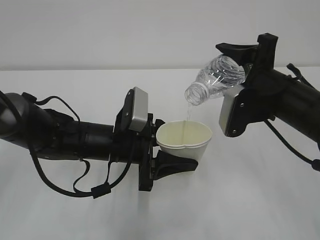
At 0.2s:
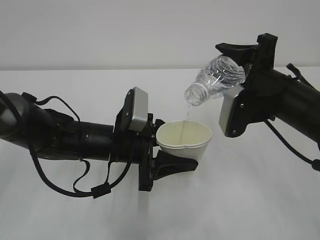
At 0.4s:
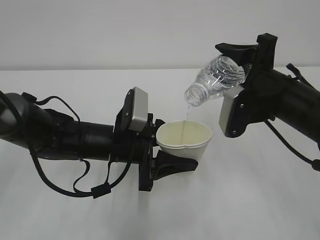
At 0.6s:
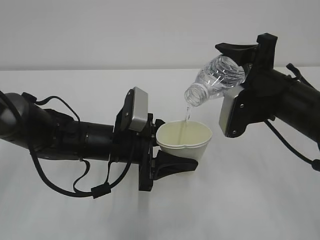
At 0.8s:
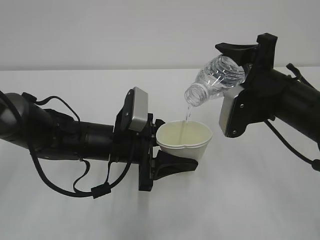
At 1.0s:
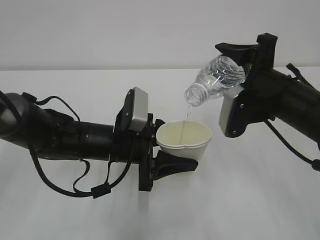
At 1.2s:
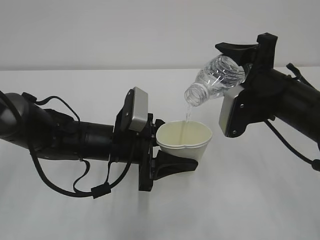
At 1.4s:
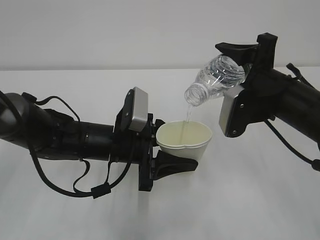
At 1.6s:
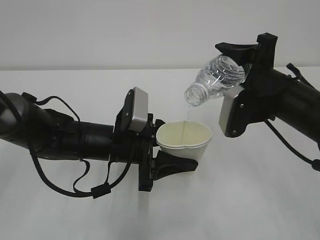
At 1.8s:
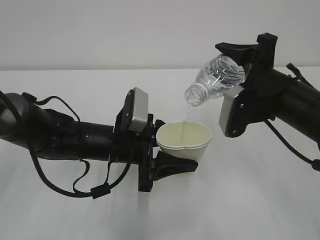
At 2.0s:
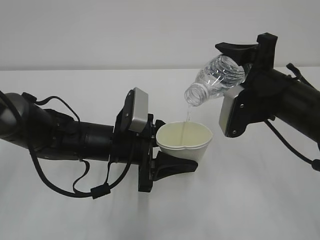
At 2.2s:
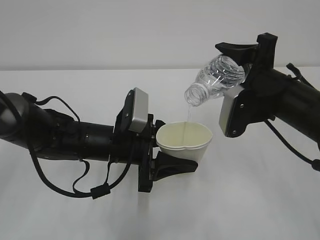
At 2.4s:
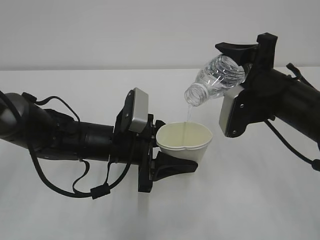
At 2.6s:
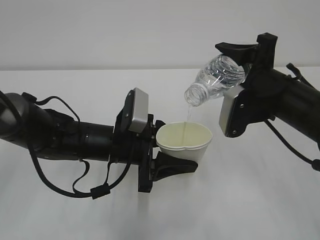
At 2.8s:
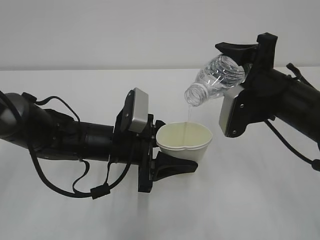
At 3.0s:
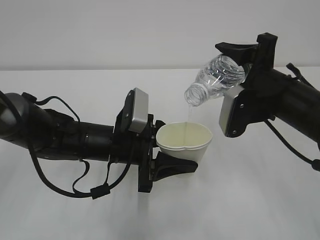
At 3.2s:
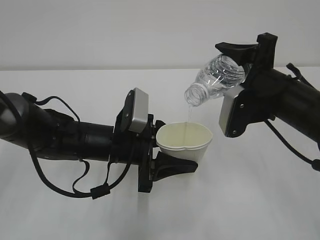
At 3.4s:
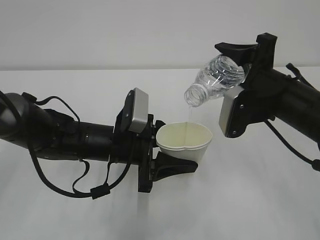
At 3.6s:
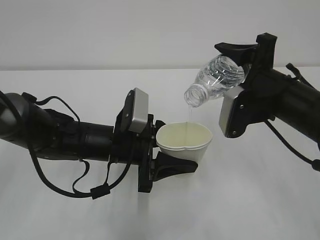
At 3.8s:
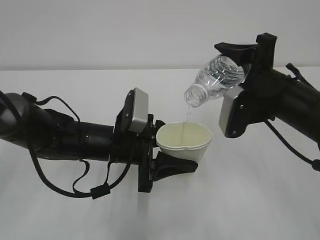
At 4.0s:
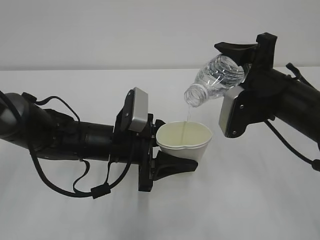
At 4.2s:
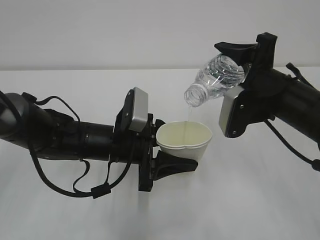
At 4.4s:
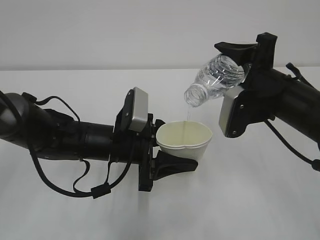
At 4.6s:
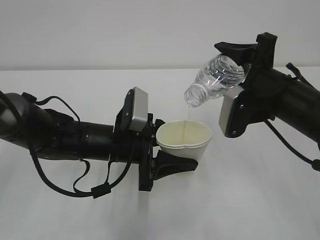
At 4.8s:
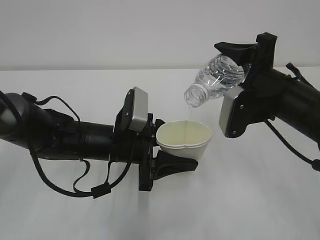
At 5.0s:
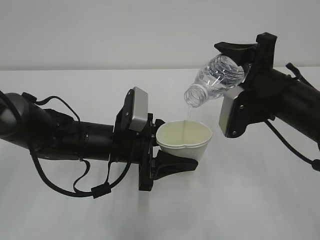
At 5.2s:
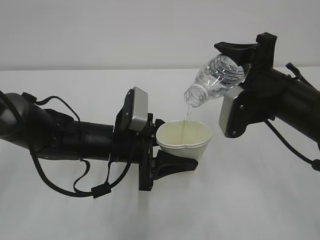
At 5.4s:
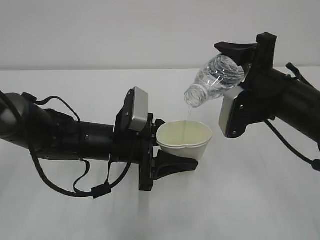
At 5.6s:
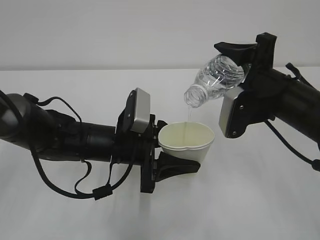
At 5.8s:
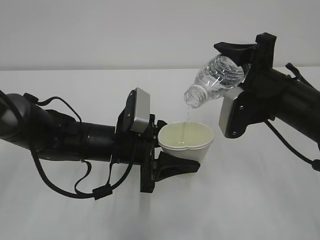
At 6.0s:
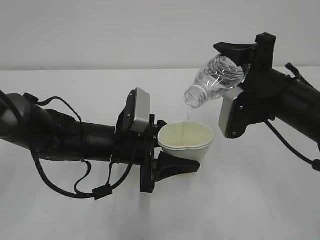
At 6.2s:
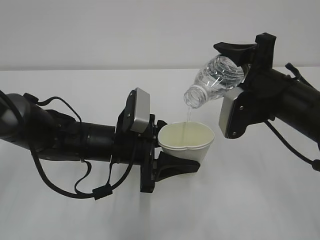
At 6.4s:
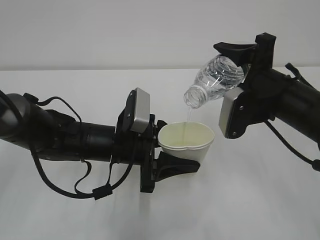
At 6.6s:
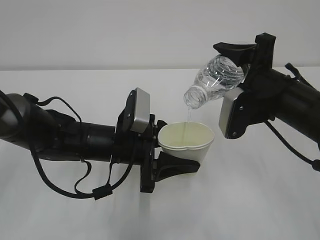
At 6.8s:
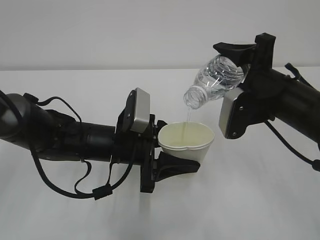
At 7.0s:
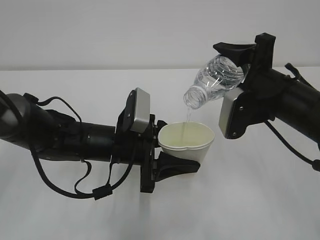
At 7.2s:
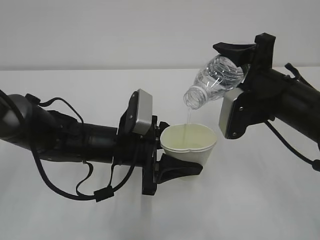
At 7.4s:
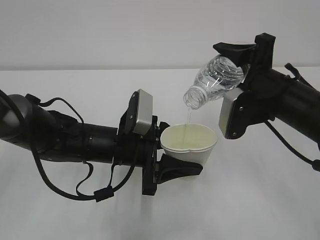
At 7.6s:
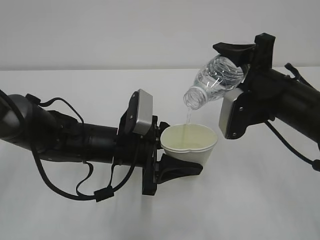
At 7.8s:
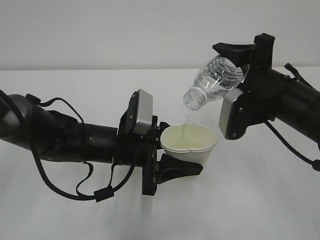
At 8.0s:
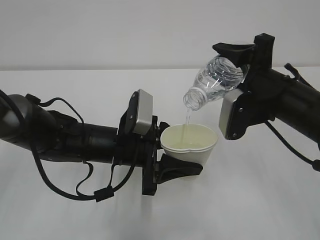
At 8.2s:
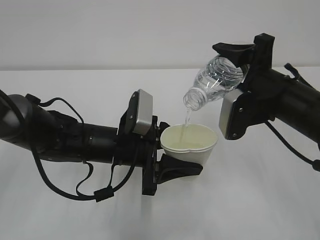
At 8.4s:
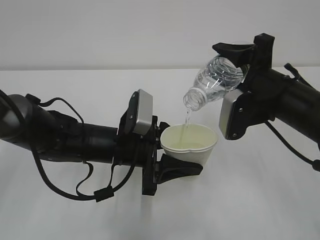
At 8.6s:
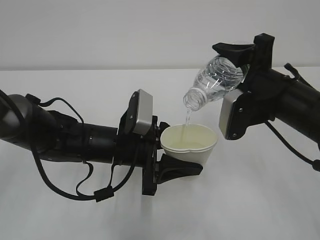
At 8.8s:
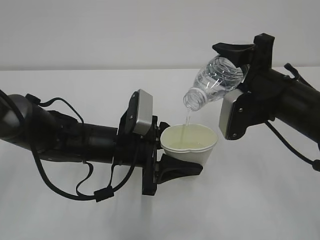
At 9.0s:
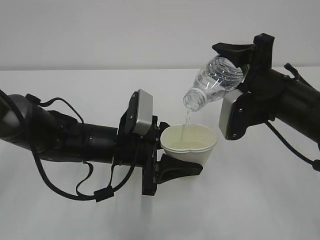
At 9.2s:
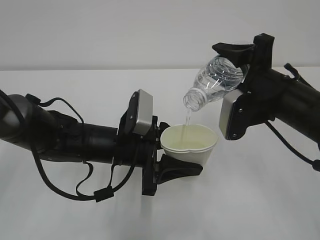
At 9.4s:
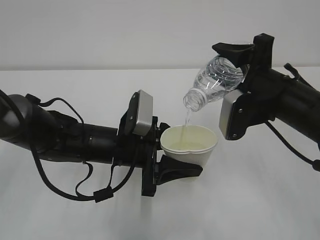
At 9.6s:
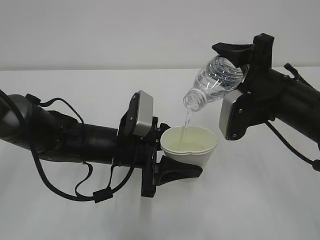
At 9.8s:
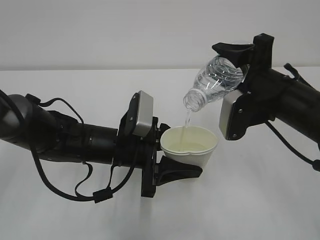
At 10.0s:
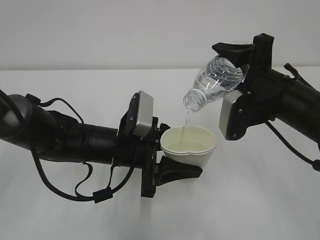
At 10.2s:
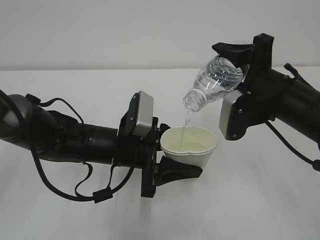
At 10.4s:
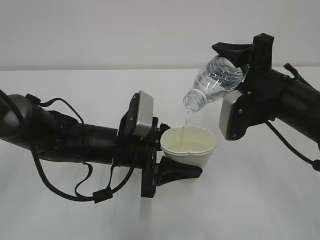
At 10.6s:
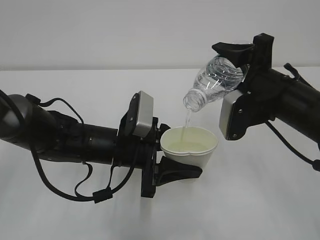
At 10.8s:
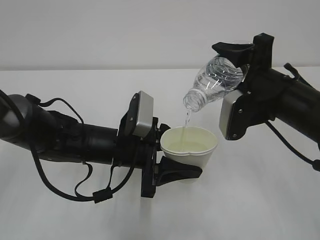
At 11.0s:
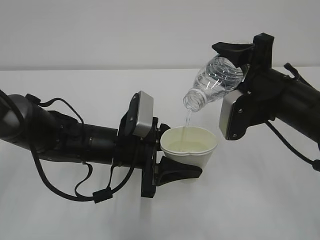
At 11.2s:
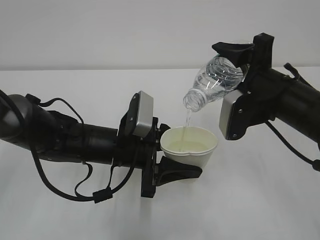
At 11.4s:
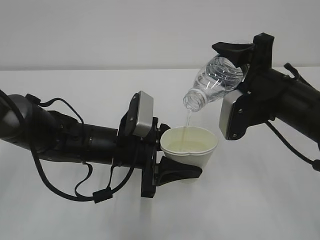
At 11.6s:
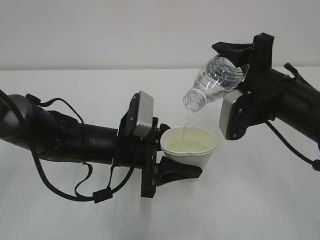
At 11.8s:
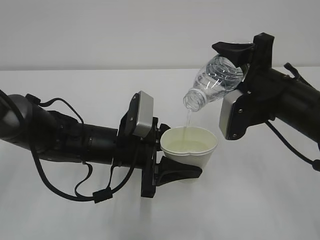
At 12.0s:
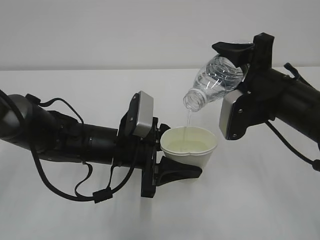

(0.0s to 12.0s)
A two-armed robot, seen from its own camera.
0.0s - 9.0s: Both grippers stay about where they are.
9.0s - 12.0s: Neither gripper changes place.

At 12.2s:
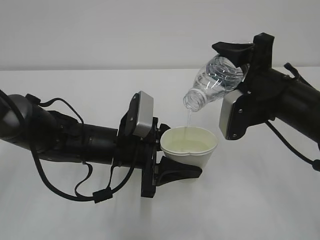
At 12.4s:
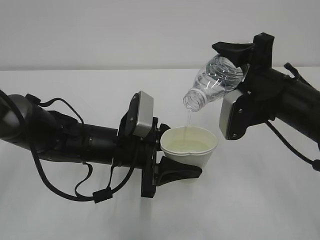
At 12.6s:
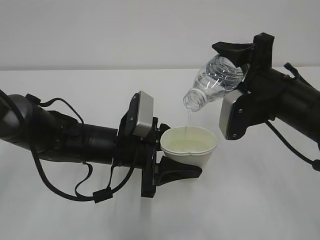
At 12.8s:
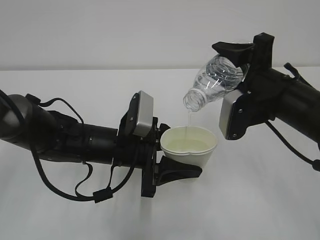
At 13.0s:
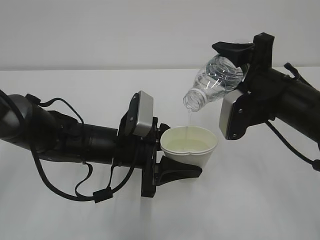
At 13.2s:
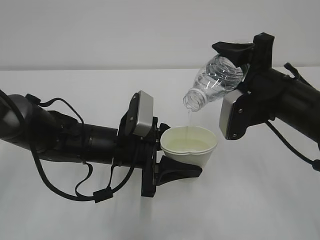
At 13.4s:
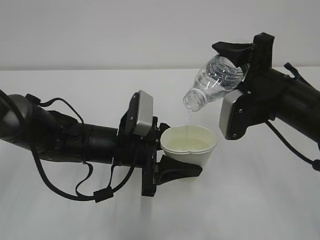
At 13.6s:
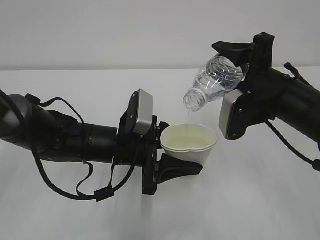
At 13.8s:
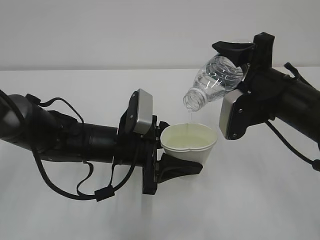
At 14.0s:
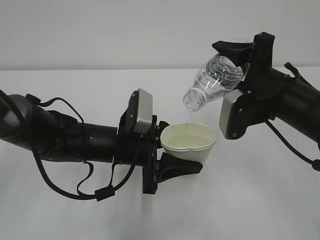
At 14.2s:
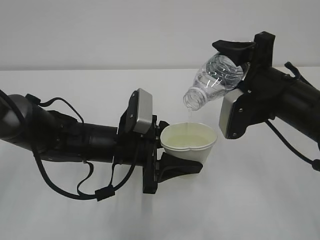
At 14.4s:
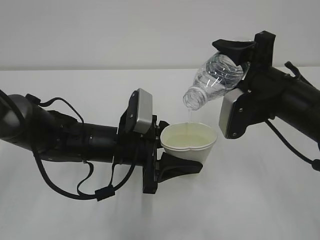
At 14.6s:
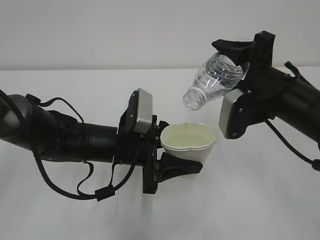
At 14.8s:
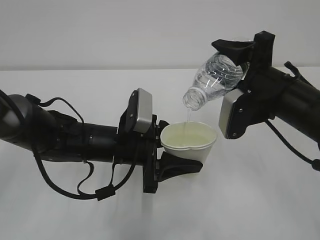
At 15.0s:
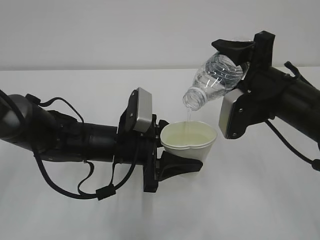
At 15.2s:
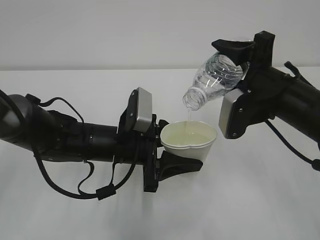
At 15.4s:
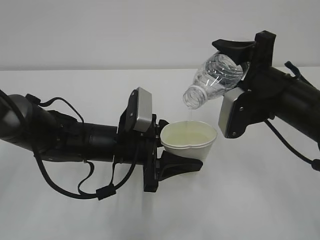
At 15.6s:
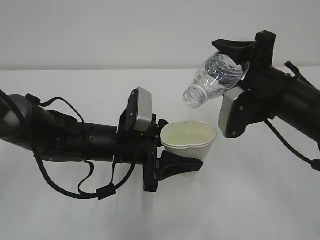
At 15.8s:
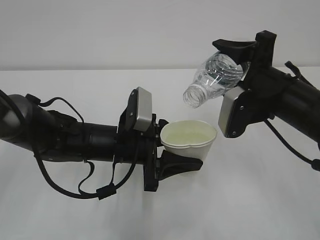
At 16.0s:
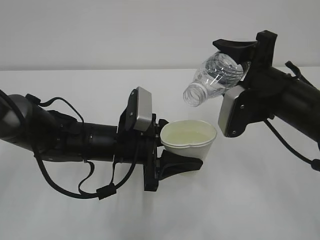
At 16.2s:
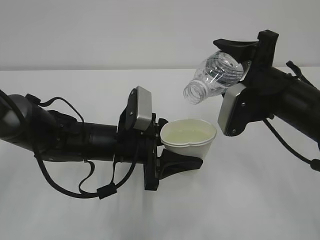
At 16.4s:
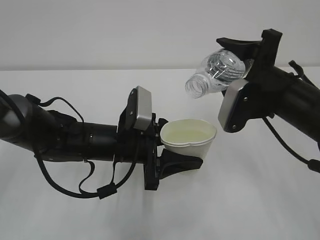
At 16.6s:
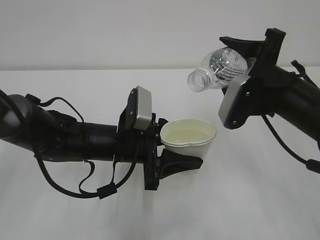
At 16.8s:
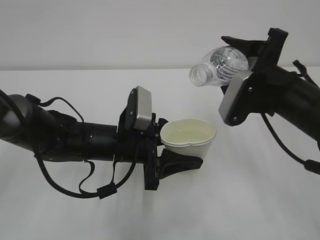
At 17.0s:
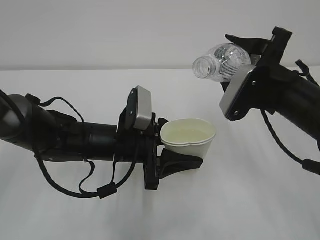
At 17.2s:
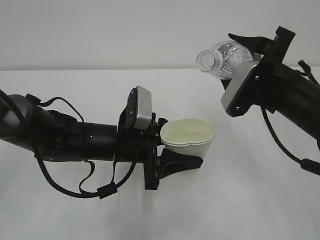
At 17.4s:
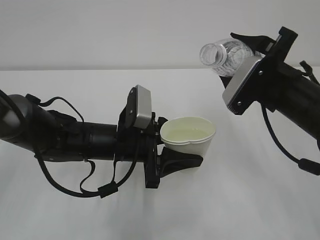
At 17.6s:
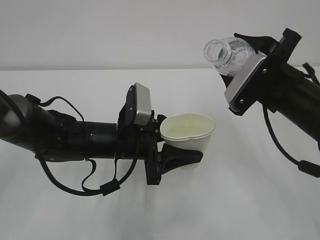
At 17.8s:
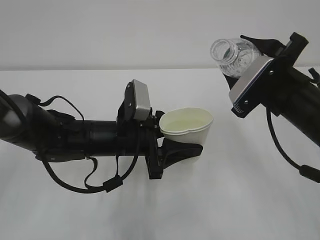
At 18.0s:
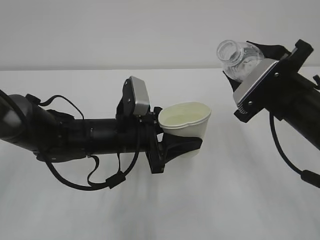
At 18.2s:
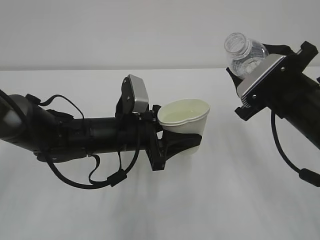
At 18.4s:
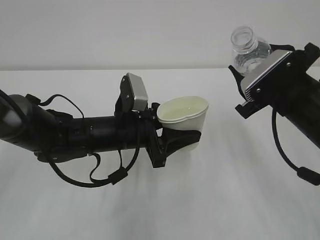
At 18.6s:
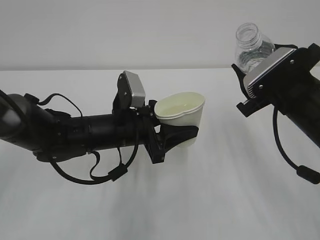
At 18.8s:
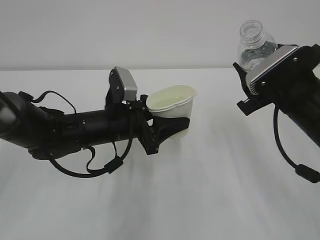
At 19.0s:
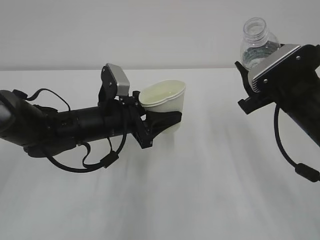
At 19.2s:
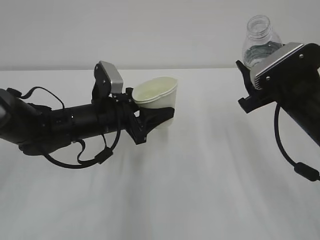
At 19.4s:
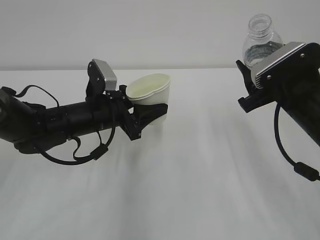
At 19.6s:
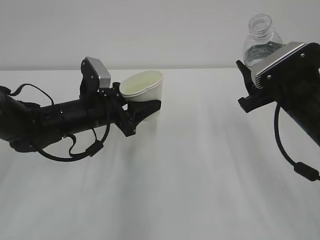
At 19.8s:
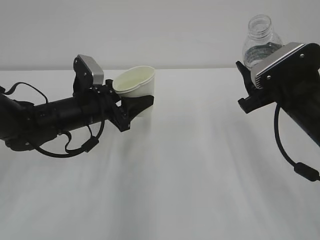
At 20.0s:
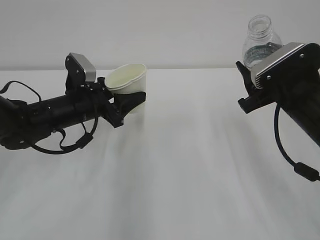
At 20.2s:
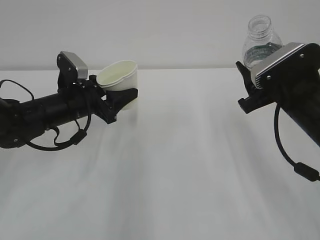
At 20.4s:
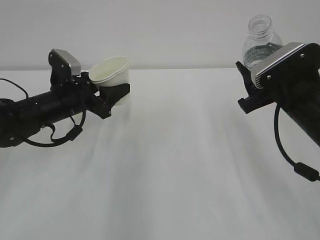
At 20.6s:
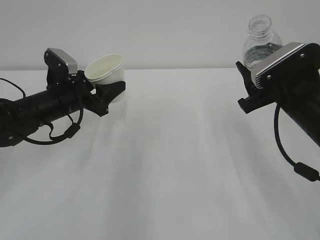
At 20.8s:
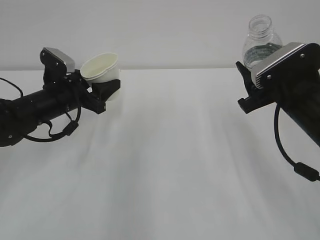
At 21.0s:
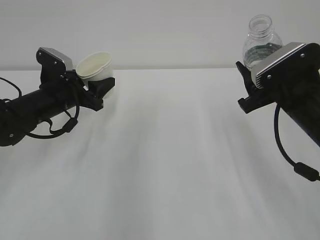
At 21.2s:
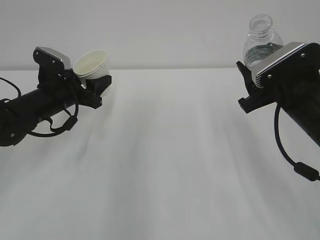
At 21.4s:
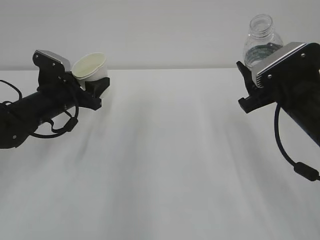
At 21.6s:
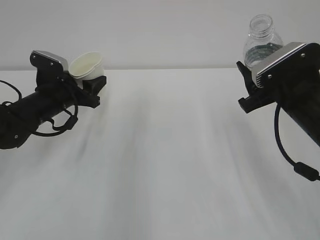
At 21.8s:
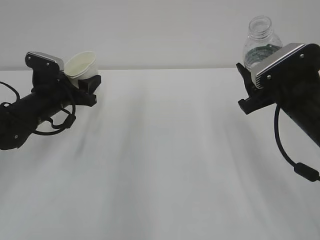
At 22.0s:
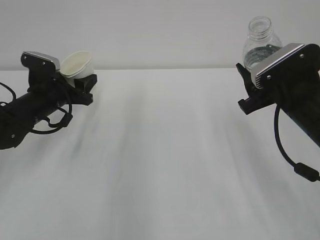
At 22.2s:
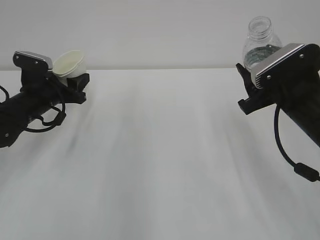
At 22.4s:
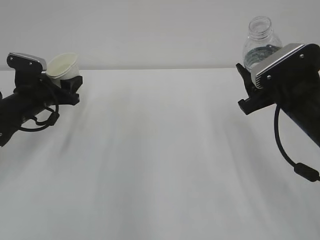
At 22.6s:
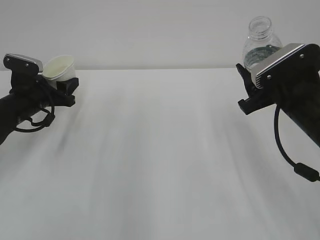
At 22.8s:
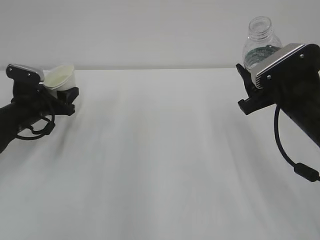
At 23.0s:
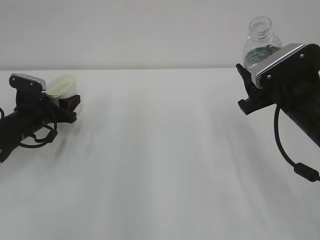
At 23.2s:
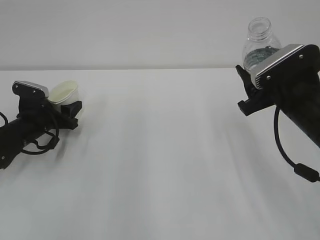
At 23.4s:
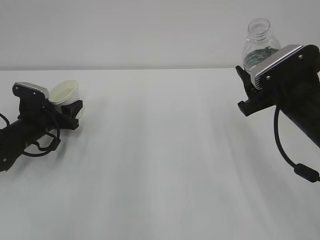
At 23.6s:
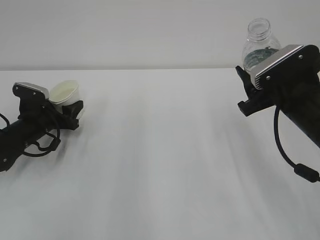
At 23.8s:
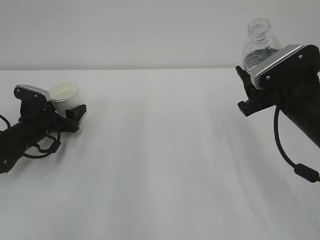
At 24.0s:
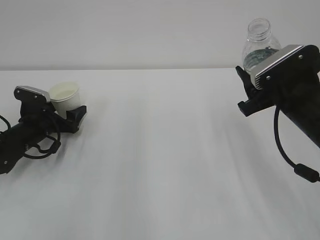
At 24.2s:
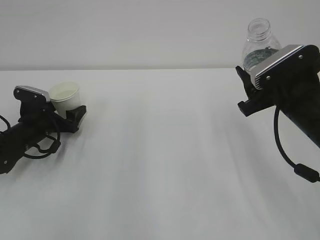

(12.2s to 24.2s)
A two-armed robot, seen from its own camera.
12.2s - 15.2s: Neither gripper changes place.
15.2s - 16.6s: There are only small adjustments of the grippers.
18.2s - 19.8s: The left gripper moves to the left and forward, about 10 cm.
19.8s - 21.2s: The left gripper shifts roughly 5 cm to the left.
21.2s - 22.6s: The left gripper goes roughly 5 cm to the left.
22.6s - 24.2s: The left gripper moves downward, approximately 5 cm, and opens up.
